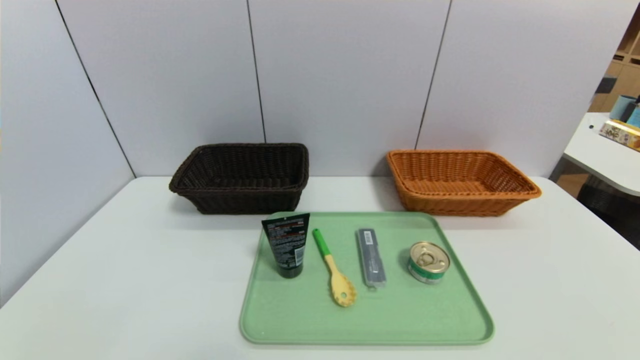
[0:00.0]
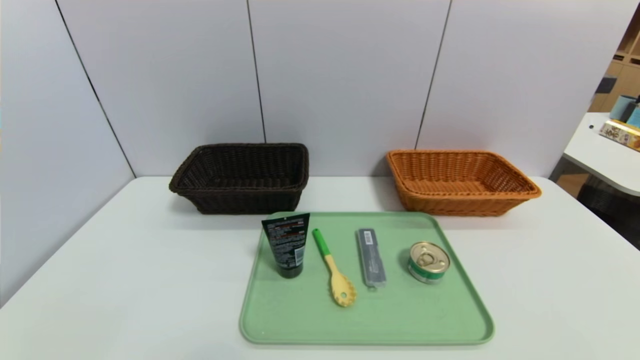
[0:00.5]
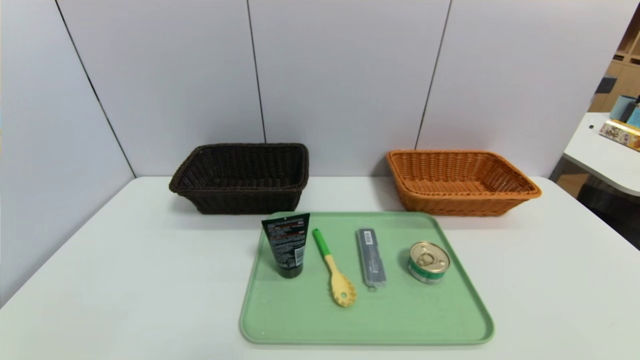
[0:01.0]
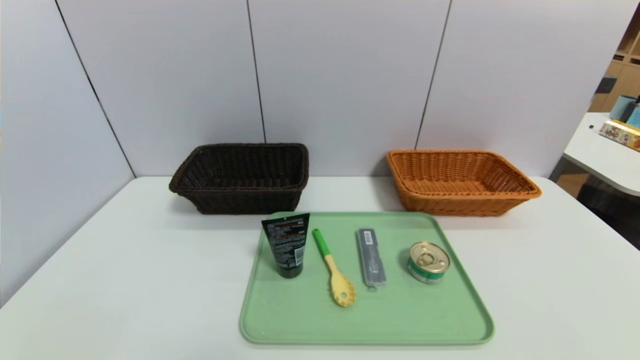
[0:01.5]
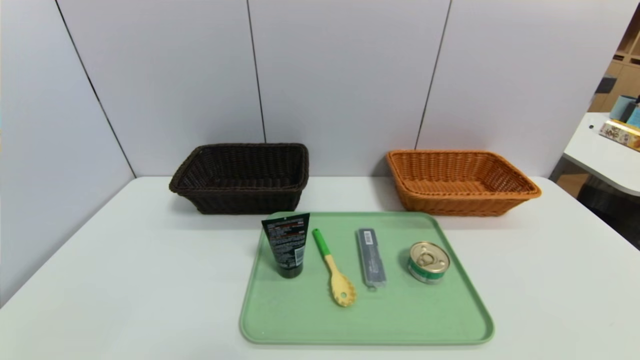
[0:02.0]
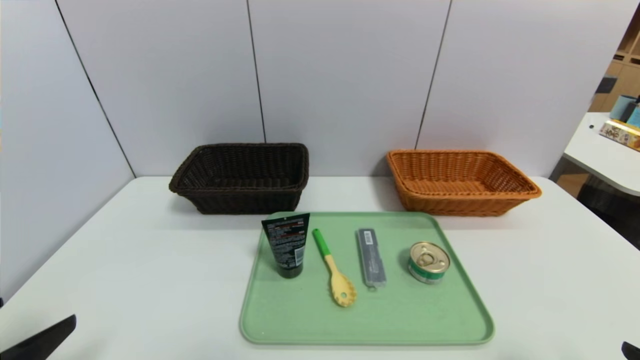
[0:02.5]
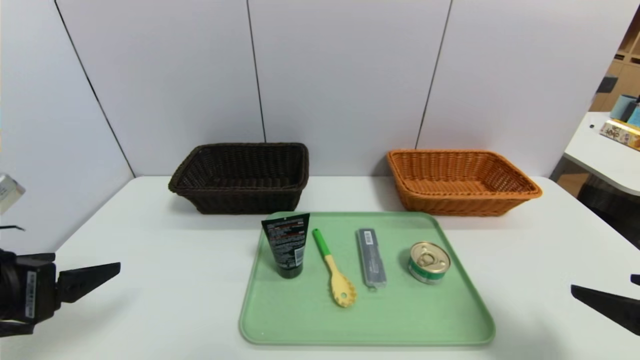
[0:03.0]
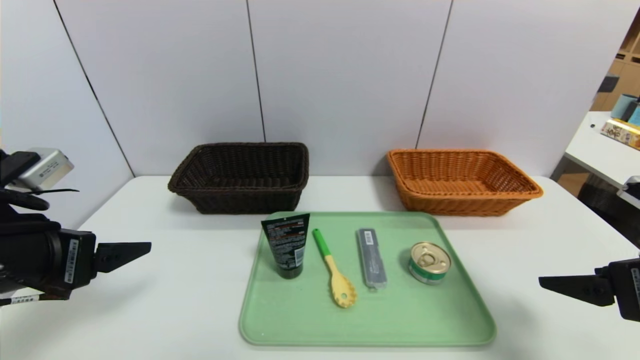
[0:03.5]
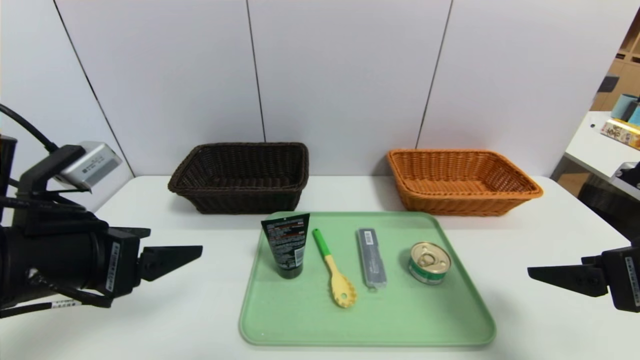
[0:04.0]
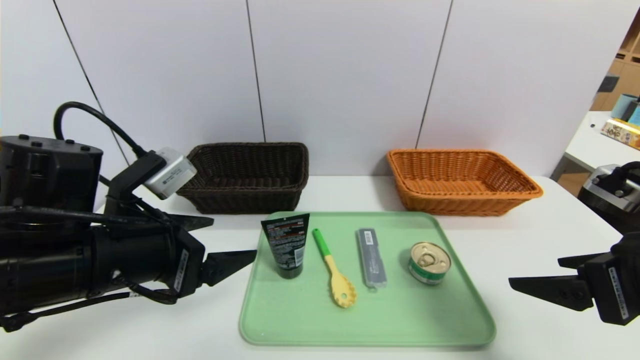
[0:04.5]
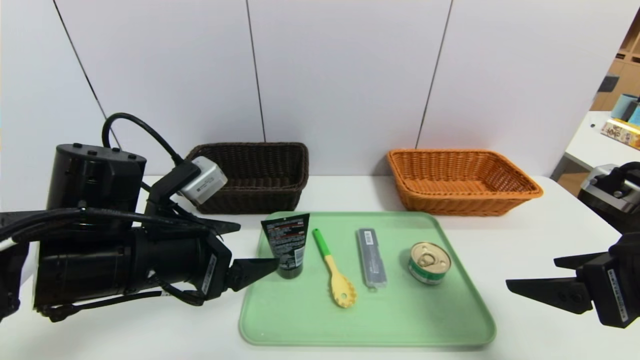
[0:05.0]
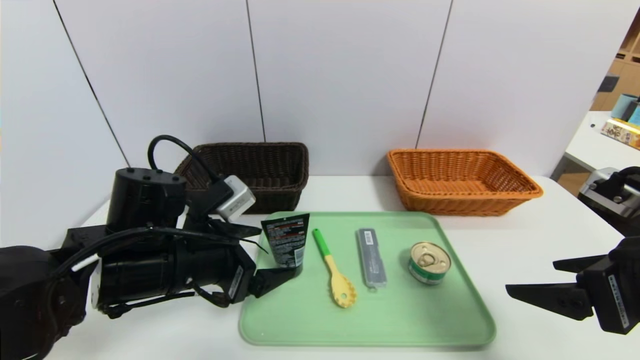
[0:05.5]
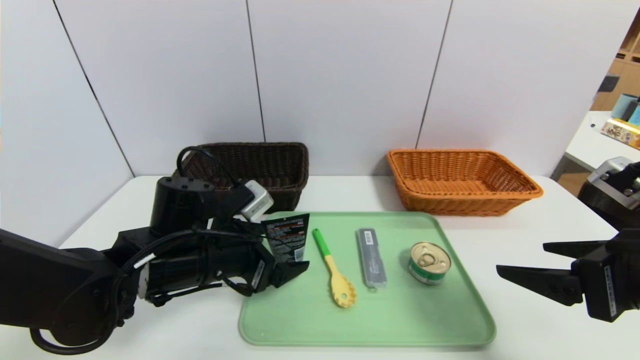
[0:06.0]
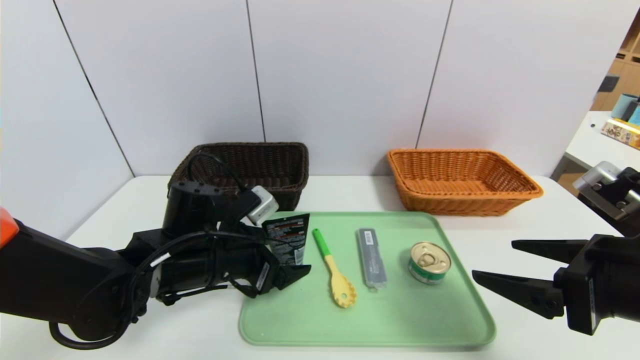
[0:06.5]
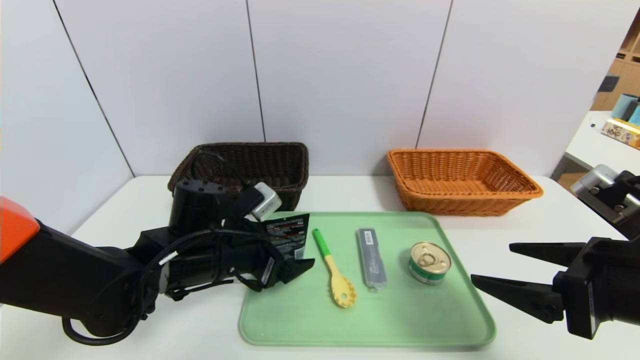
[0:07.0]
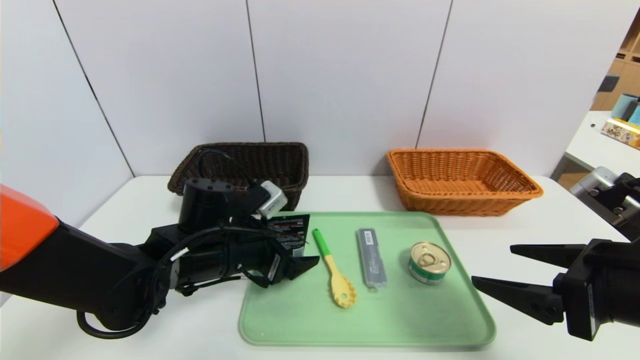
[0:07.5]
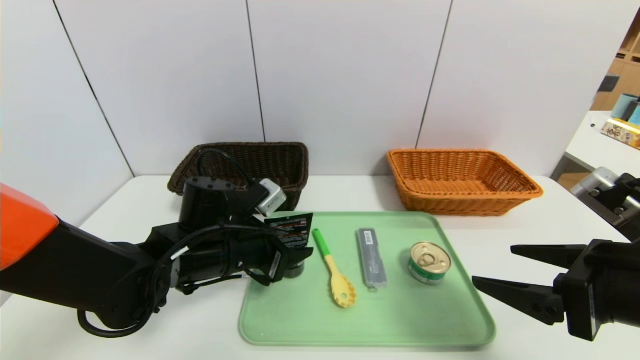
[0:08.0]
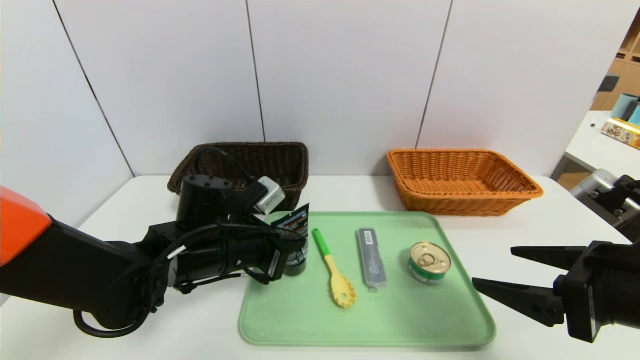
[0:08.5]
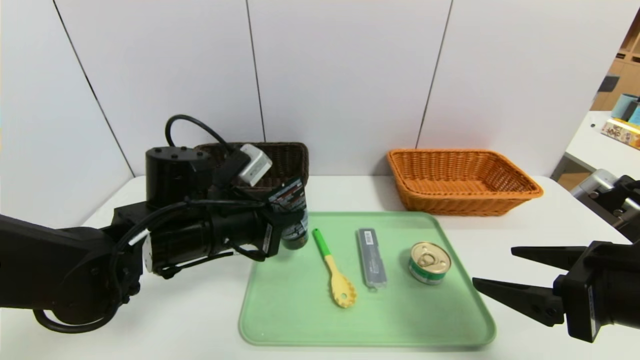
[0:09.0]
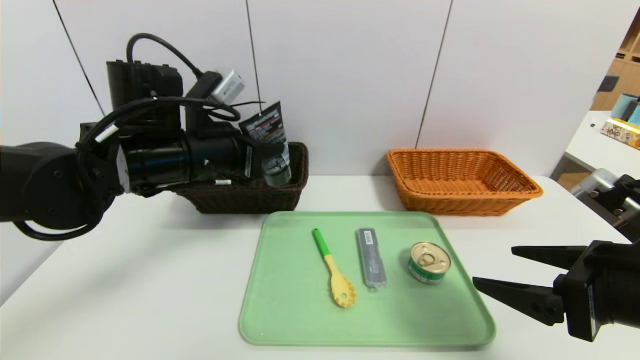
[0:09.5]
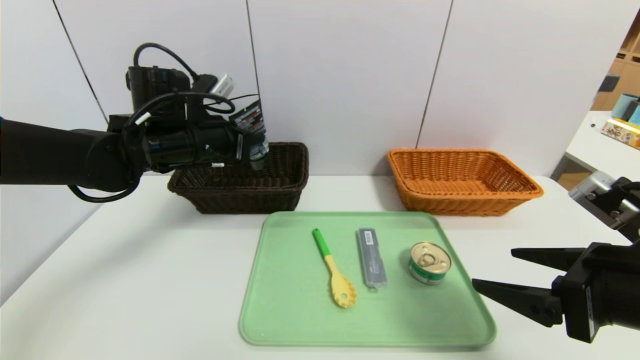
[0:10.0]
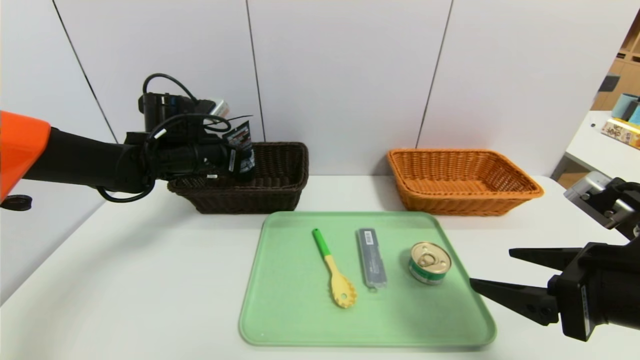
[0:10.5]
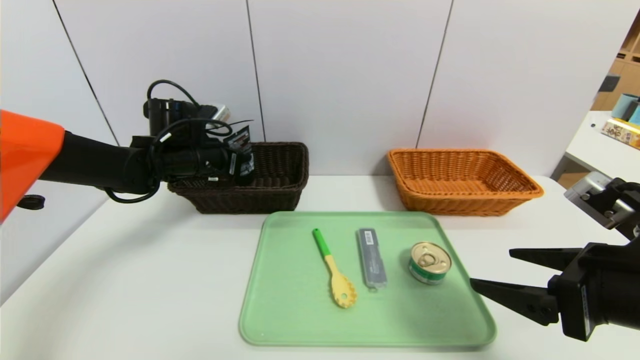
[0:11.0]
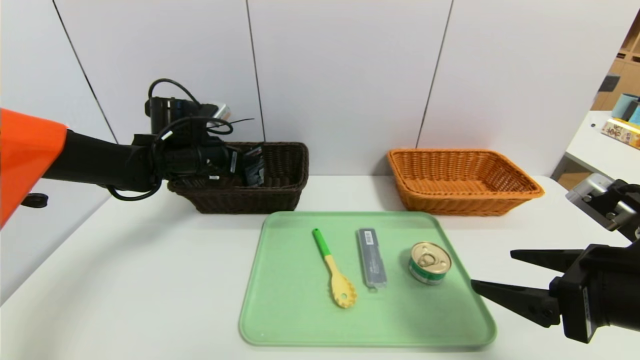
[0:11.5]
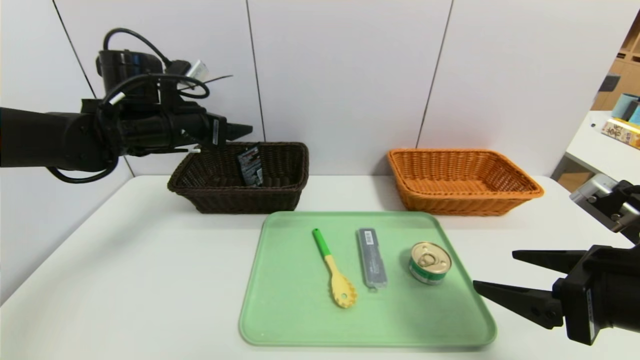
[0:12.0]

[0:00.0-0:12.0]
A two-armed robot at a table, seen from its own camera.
Task of the whole recording: place the food in the right basket with the right gripper, and place the non food items in the left basket with the left gripper.
Step, 0:00.0 to 0:11.0: Grasp the soft cleanser and put it in the left basket.
0:02.0 to 0:04.0: The two grippers go some 20 cm forward and upward.
0:04.0 to 0:06.0: The left gripper is displaced downward, forward and to the right by some 15 cm.
0:06.0 to 0:08.0: The left gripper closes its fingers.
0:08.0 to 0:10.0: The left gripper goes about 15 cm upward, forward and to the left, and closes.
0:10.0 to 0:12.0: The left gripper opens up.

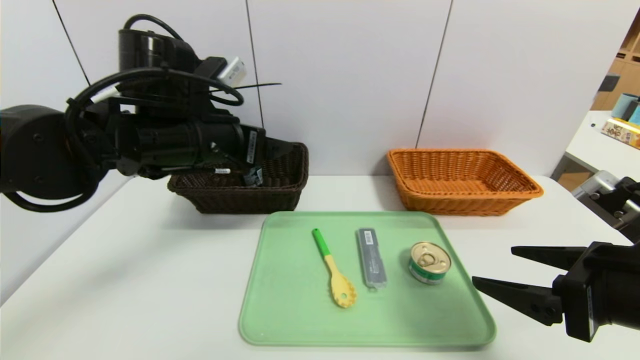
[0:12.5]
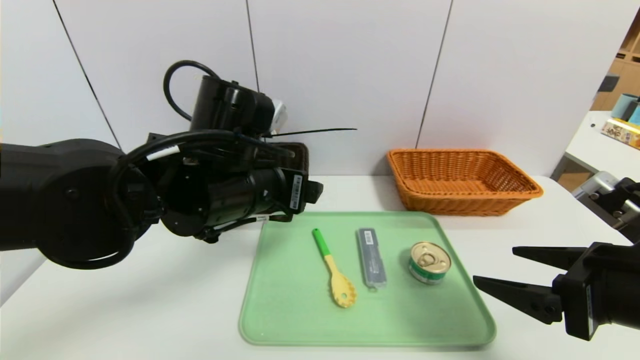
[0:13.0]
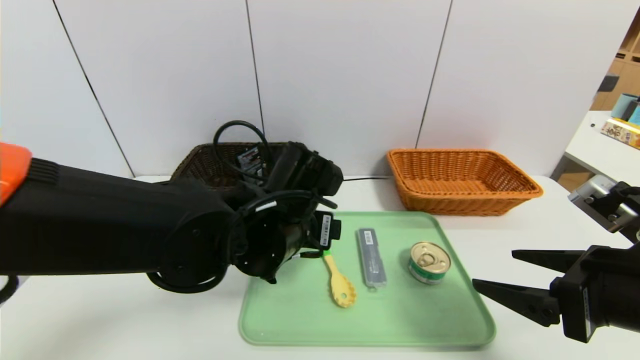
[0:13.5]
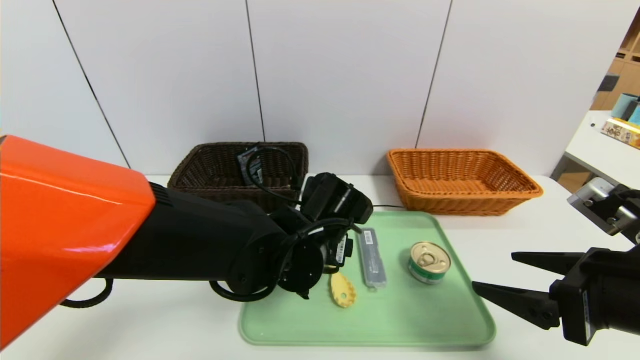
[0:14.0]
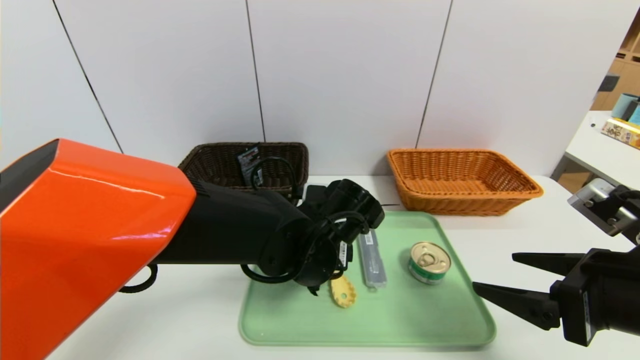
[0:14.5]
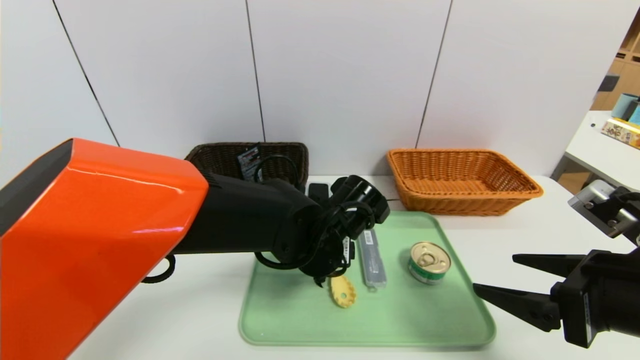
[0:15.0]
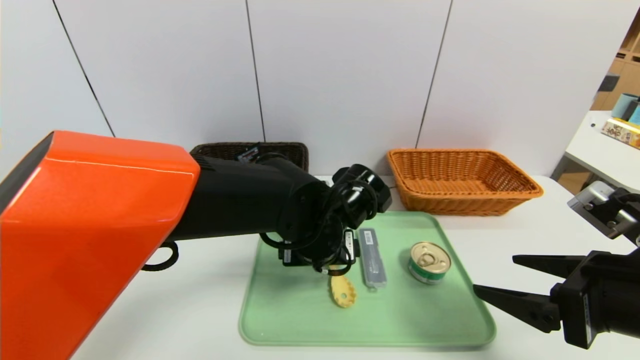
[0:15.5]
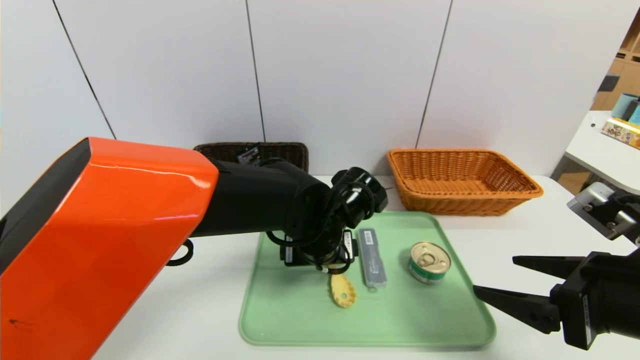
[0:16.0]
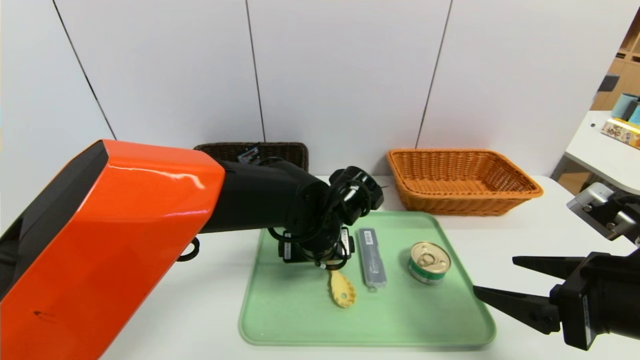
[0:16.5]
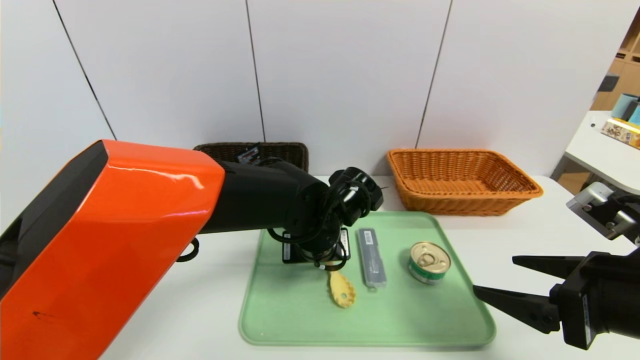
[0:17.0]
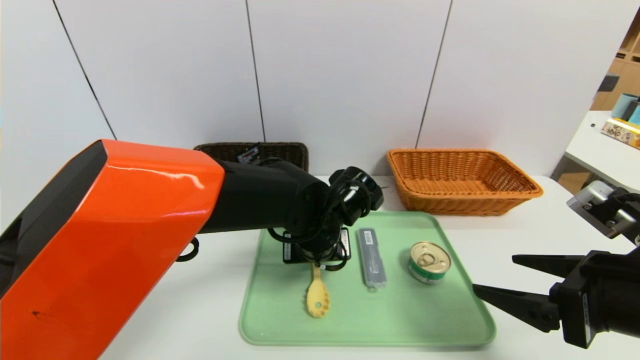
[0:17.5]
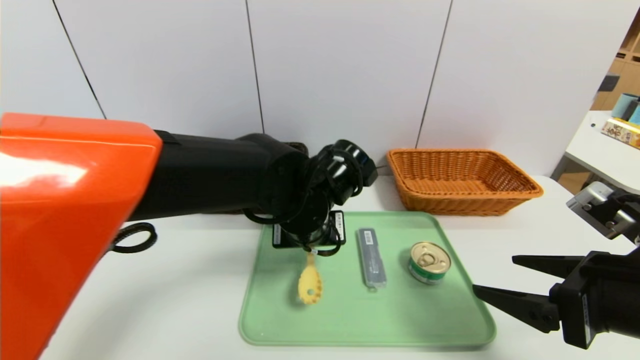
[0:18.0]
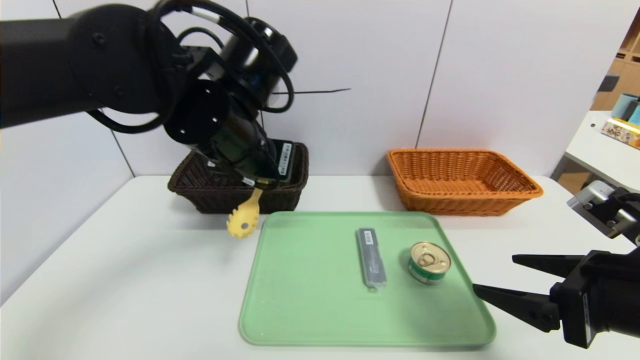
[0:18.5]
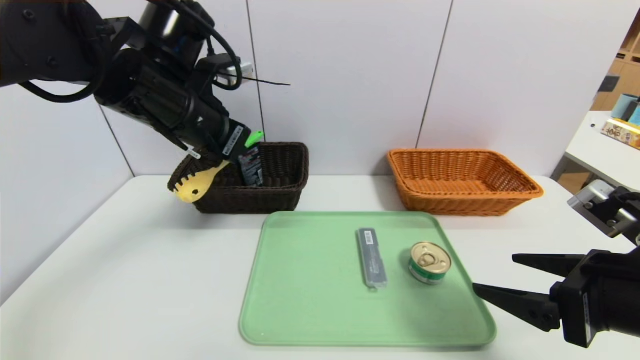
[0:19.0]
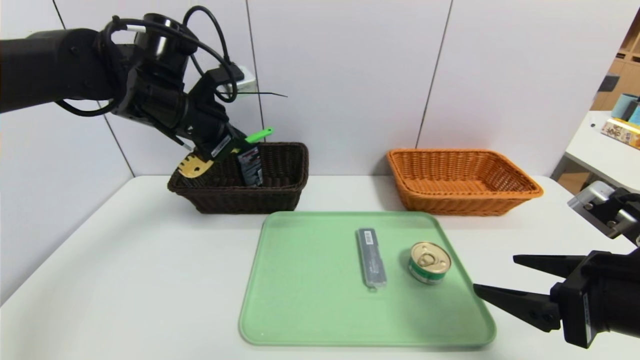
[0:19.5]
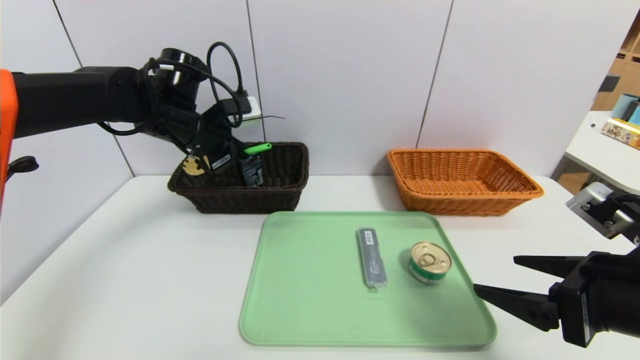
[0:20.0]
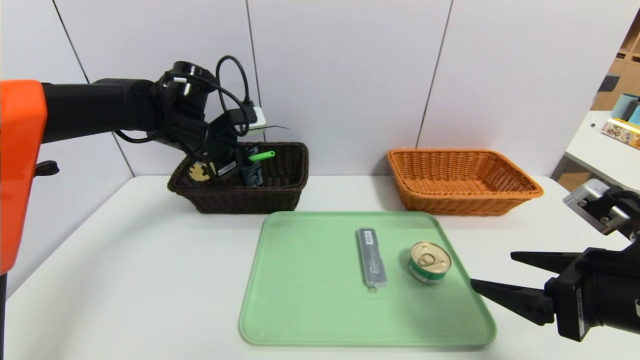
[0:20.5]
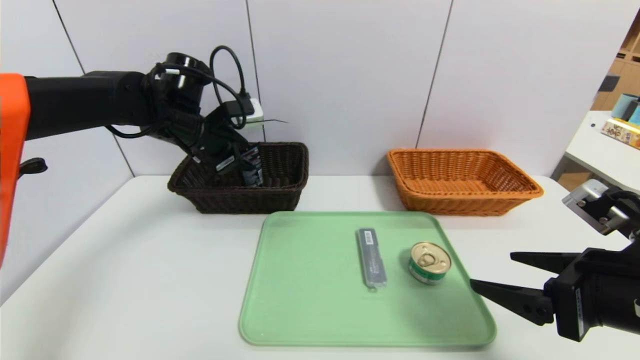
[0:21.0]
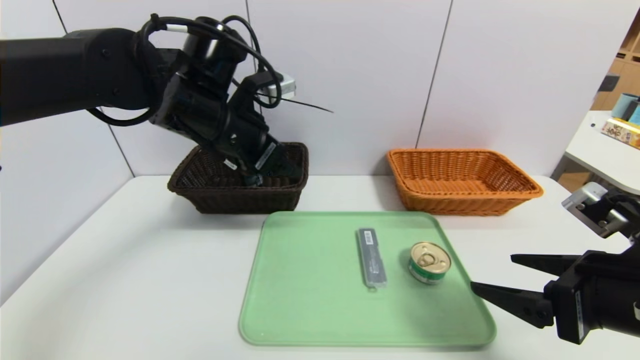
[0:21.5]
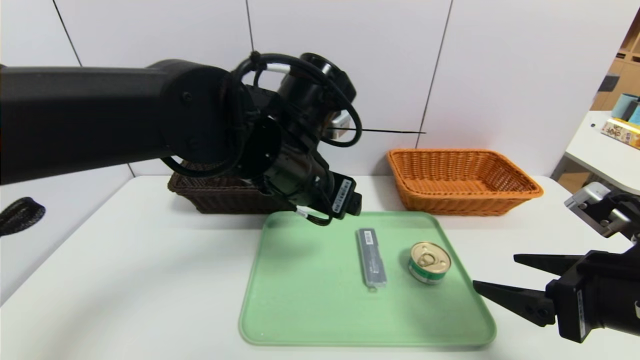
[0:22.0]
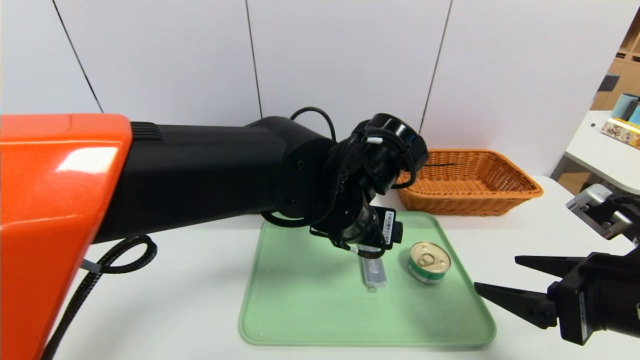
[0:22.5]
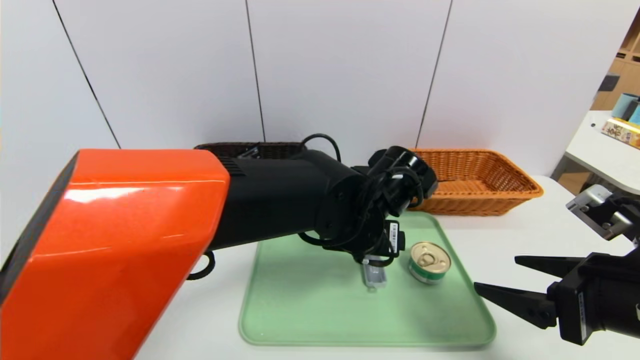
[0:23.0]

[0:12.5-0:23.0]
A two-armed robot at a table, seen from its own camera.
Task of the whole recording: place the food in the right basket with the right gripper, and place the non food items in the left basket with the left gripper.
Step, 0:12.5 to 0:21.0: Grasp the back scratcher and put it in the left basket.
0:12.5 to 0:14.5: The left gripper heads to the right and downward, covering about 20 cm.
0:14.5 to 0:16.5: The grippers stay close to where they were, moving slightly.
0:16.5 to 0:19.0: The left gripper travels upward and to the left by about 25 cm, and closes up.
0:19.0 to 0:21.0: The left gripper goes roughly 10 cm forward and downward, and opens.
0:21.0 to 0:23.0: The left gripper moves to the right and backward, some 30 cm, and opens its fingers.
